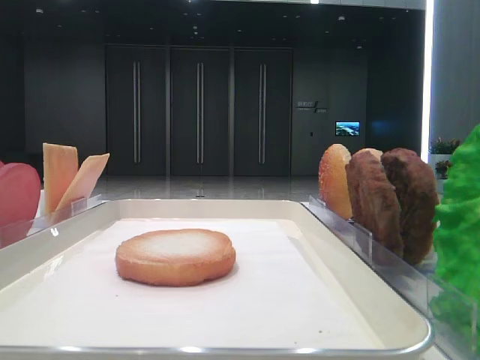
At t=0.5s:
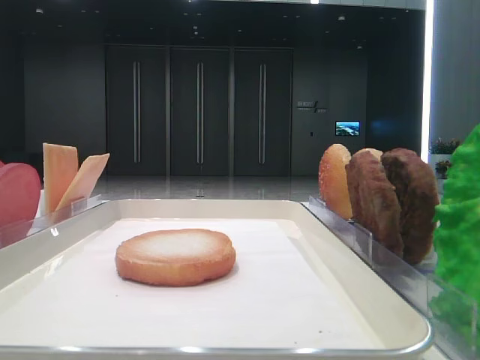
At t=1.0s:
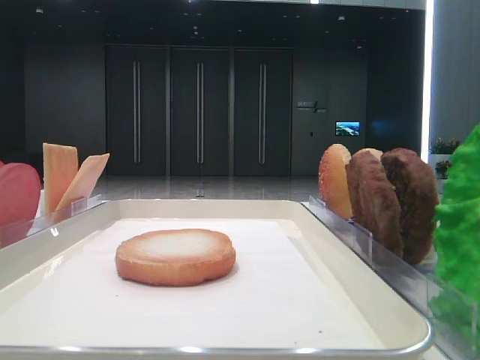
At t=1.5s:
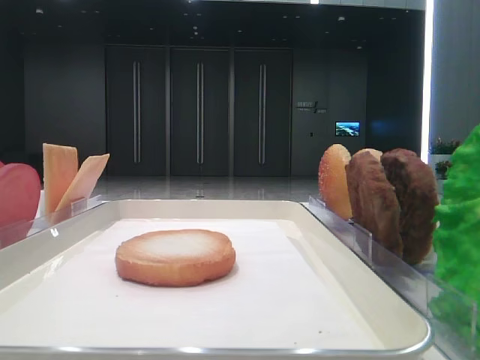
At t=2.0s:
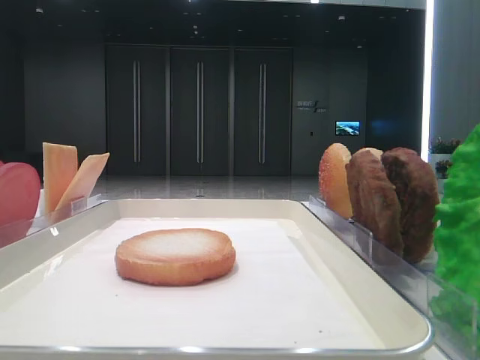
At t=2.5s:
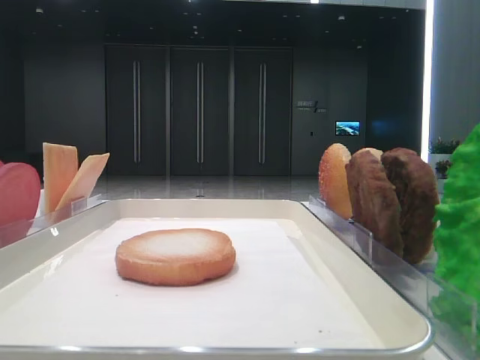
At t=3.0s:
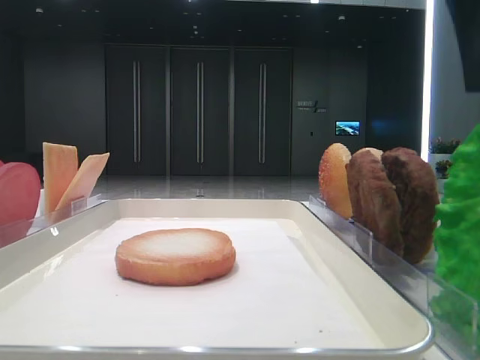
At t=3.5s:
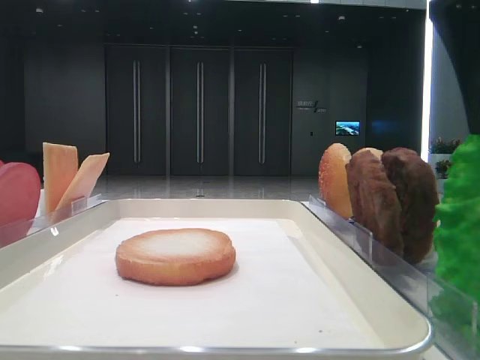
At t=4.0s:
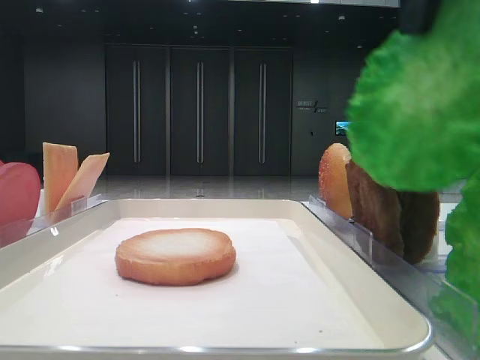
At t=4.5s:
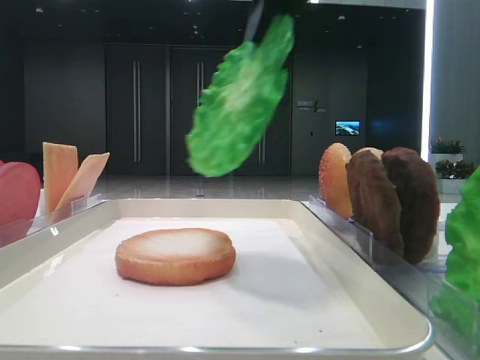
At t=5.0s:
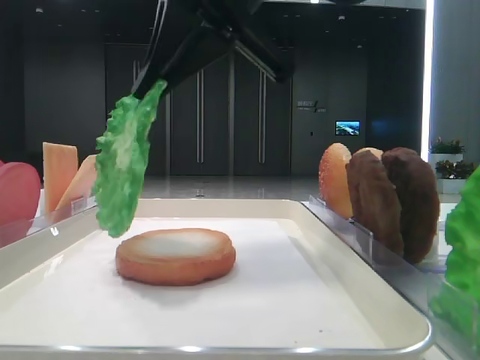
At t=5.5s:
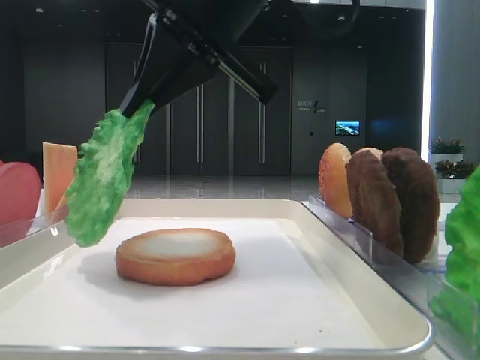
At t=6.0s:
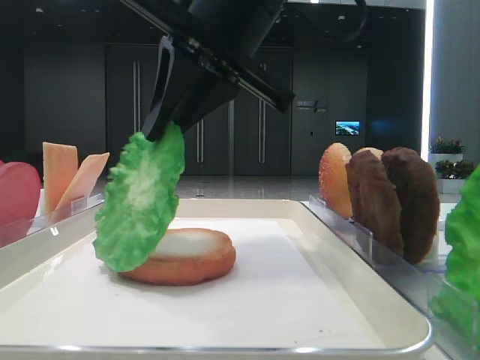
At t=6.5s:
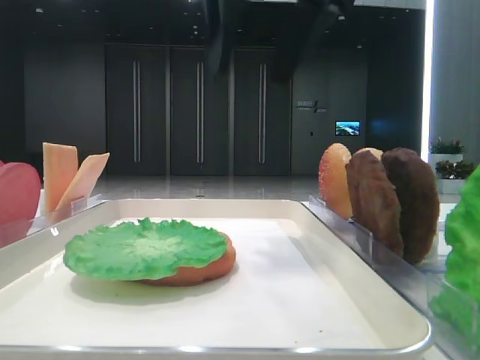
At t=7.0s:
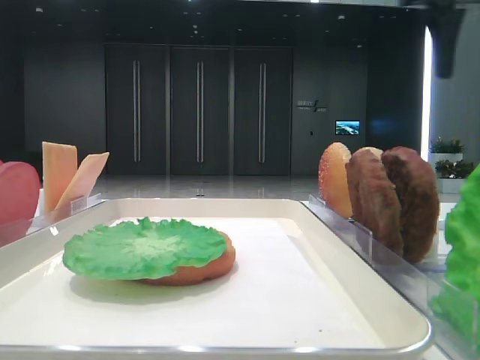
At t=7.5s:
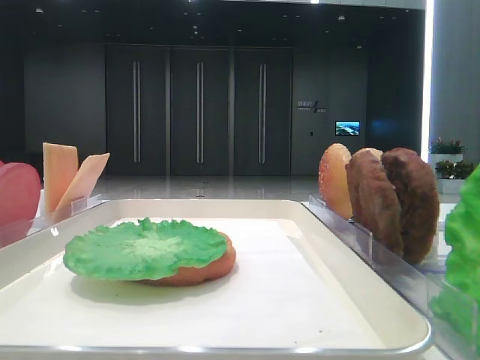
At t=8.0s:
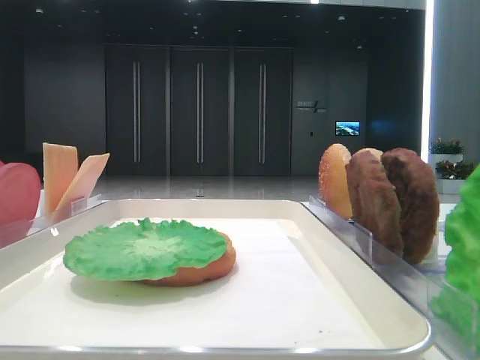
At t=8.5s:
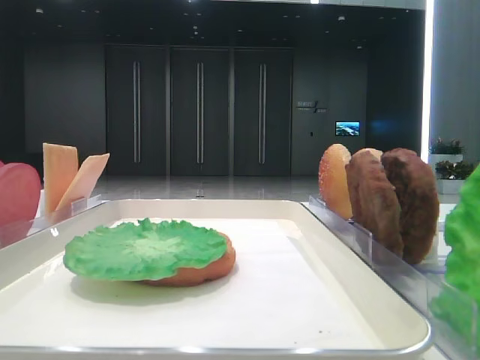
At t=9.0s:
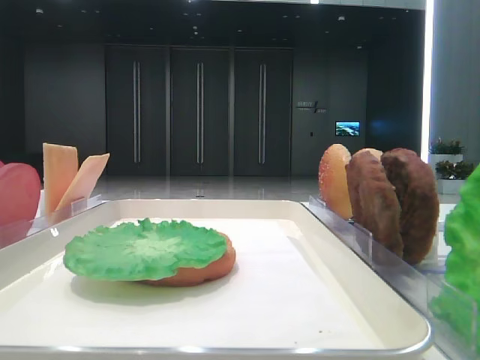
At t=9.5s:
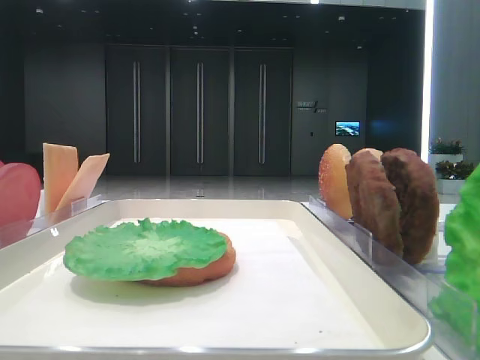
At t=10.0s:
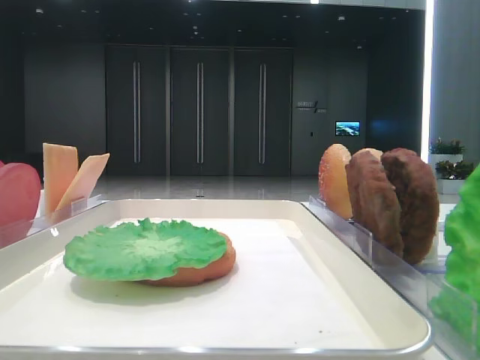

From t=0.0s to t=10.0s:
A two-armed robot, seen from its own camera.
Step, from t=0.0s to t=3.5s: Grab the lettuce leaf with the right hand.
Step, from t=4.0s to t=6.0s: Place the lettuce leaf on the bottom bread with the right hand.
From t=2.0s to t=4.0s: The right gripper goes some 20 cm to the left, and closes up.
From t=4.0s to t=6.0s: The right gripper shifts roughly 15 cm to the left, downward and forward.
From t=6.0s to t=8.0s: The right gripper shifts about 40 cm to the right and backward, and opens.

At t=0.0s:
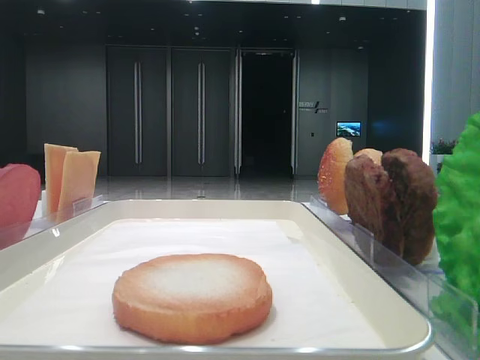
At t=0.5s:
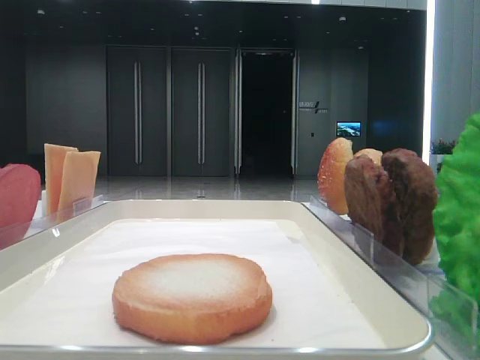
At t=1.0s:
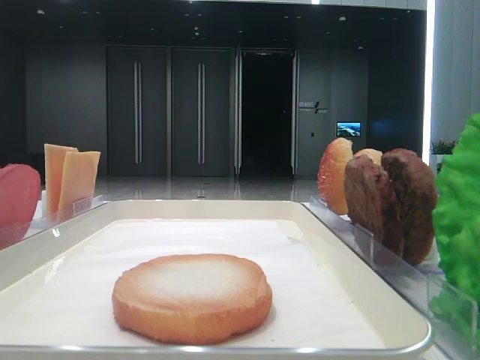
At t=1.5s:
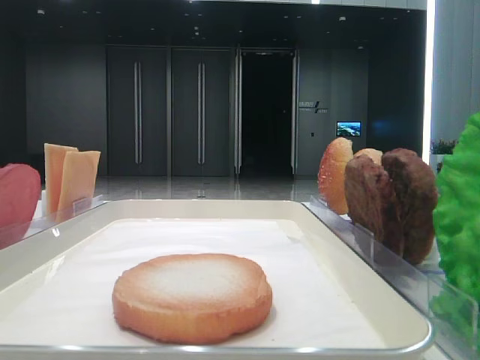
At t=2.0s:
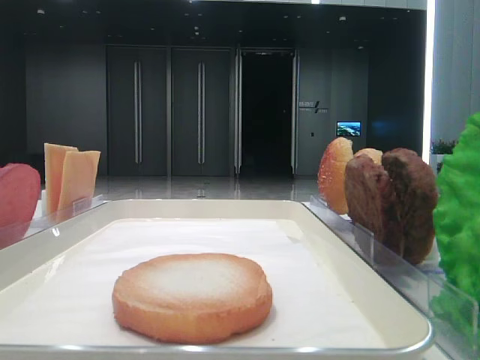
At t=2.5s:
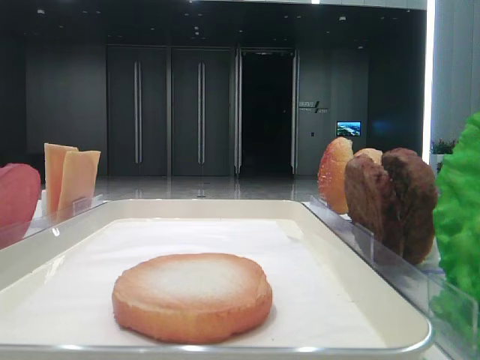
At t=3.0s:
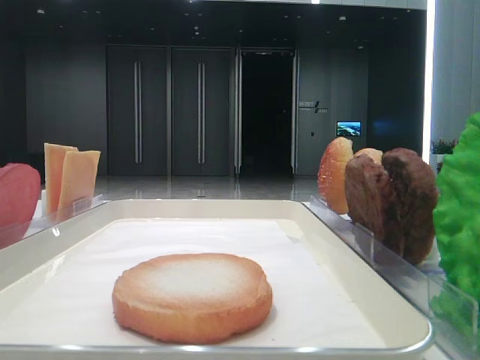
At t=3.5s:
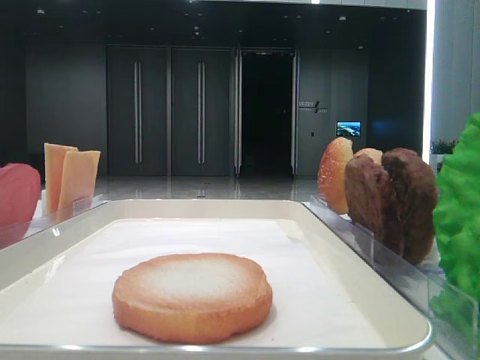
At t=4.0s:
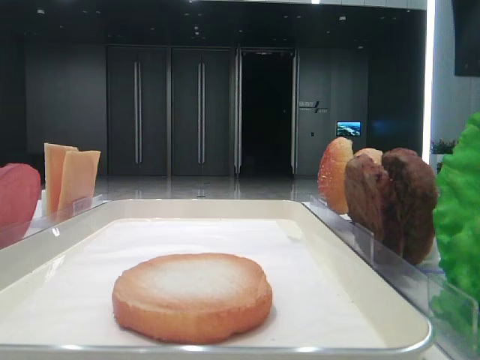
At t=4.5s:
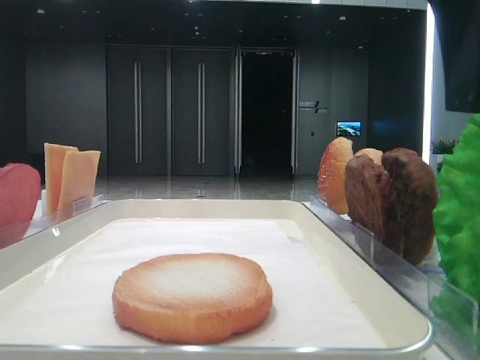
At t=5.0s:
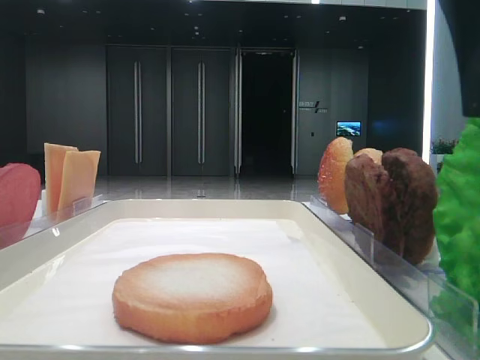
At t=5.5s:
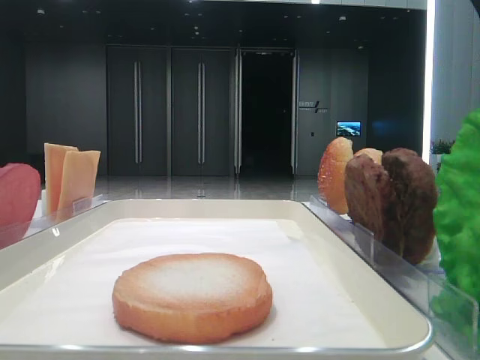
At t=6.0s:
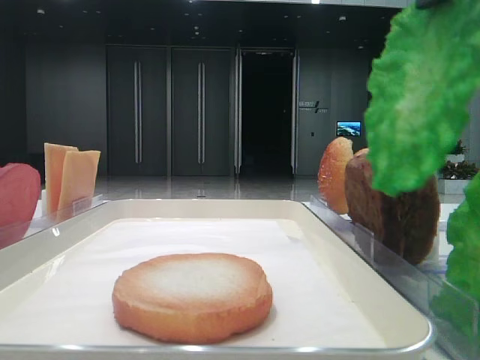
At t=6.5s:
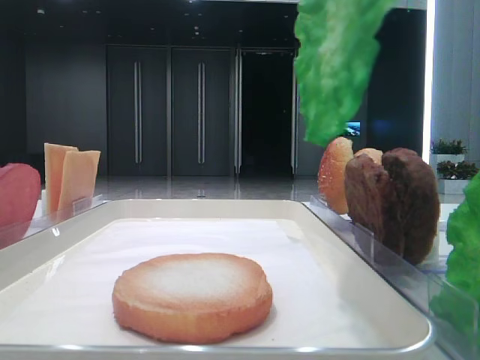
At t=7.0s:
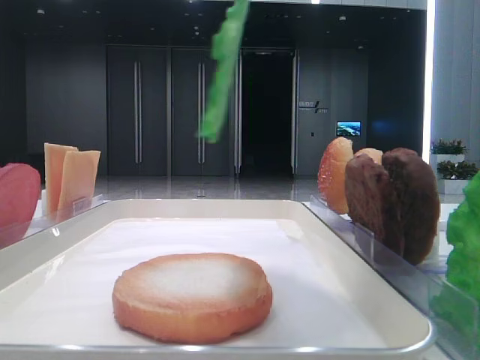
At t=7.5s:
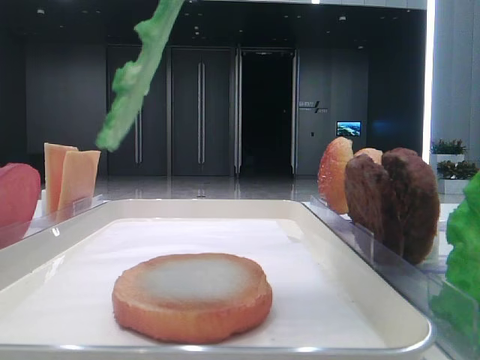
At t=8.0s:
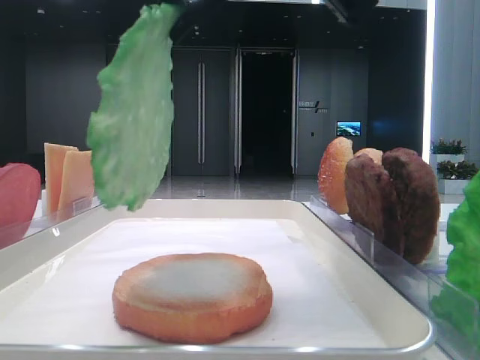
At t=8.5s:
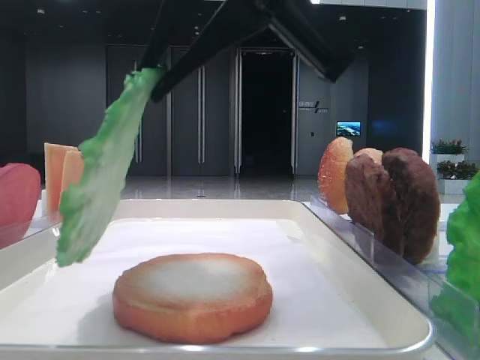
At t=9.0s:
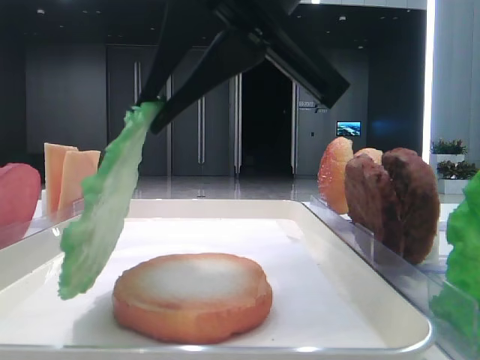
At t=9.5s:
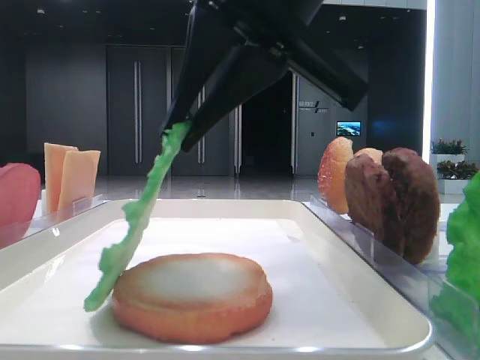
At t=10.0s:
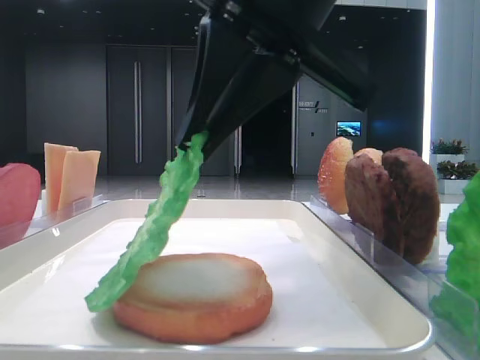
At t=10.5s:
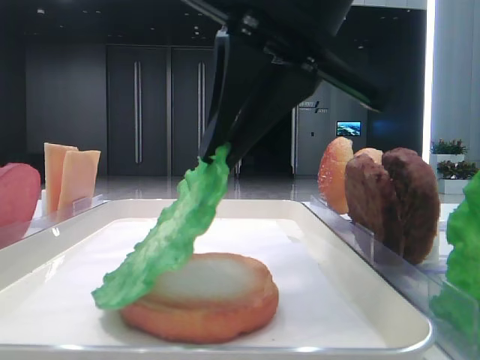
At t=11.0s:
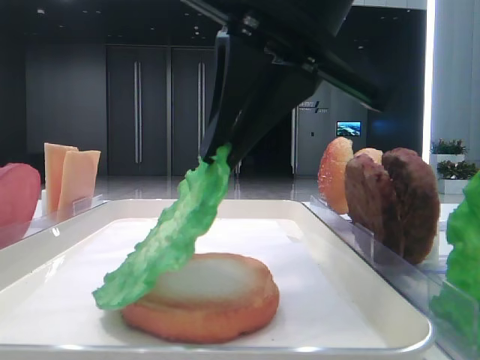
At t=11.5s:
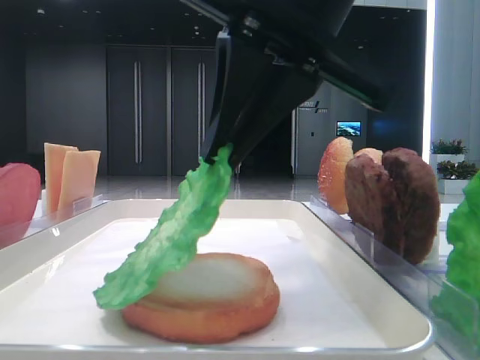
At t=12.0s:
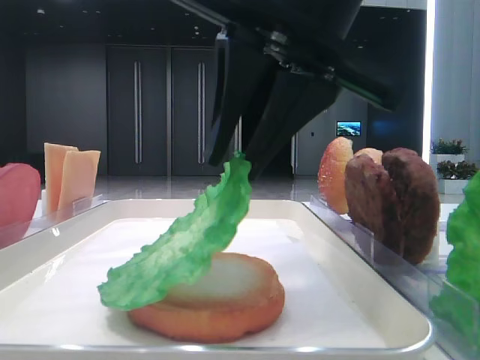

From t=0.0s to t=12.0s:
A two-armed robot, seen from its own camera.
Step, from t=0.0s to t=5.0s: Grab the lettuce leaf with the right hand.
From t=2.0s to t=4.0s: The right gripper shifts some 10 cm to the left.
From t=4.0s to t=6.0s: The right gripper closes.
From t=6.0s to t=8.0s: The right gripper travels to the left by roughly 10 cm.
From t=8.0s to t=10.0s: The right gripper is displaced downward by roughly 5 cm.
From t=10.0s to t=12.0s: The grippers make only small movements.

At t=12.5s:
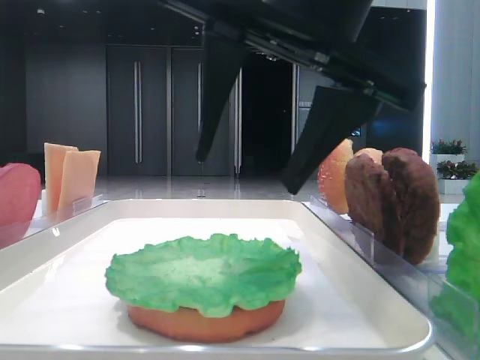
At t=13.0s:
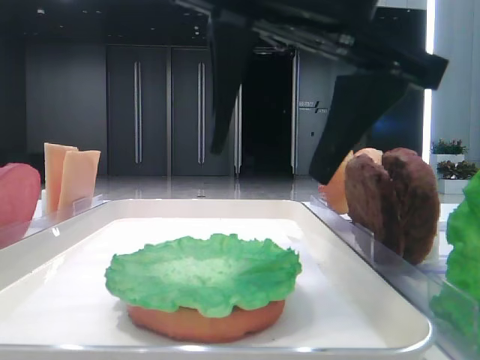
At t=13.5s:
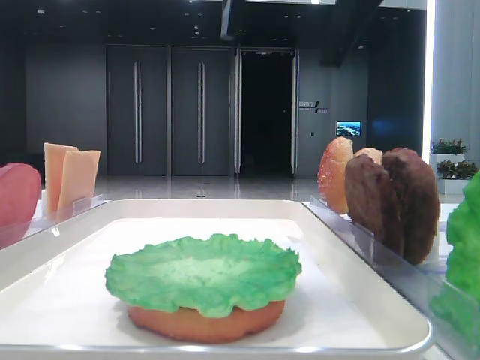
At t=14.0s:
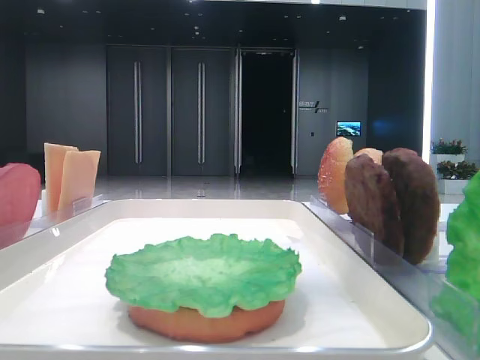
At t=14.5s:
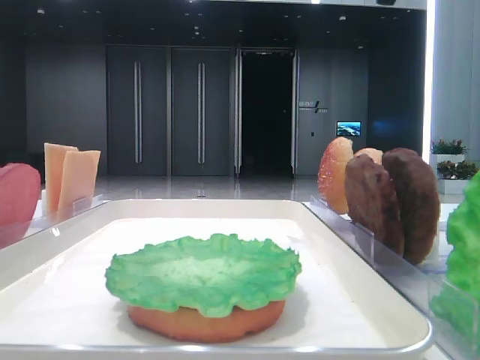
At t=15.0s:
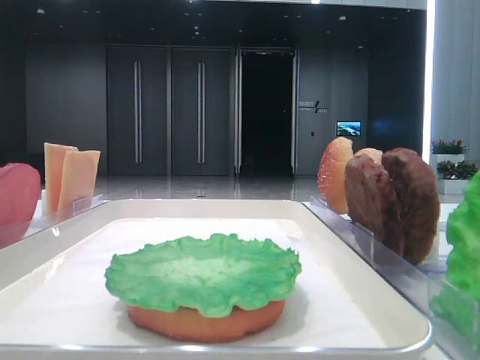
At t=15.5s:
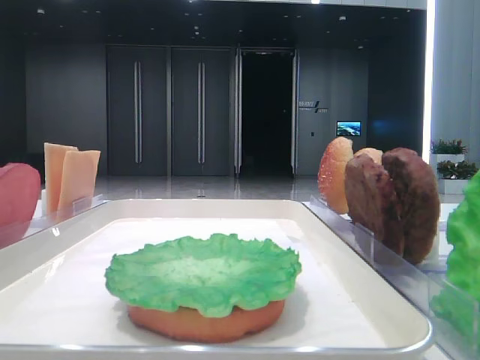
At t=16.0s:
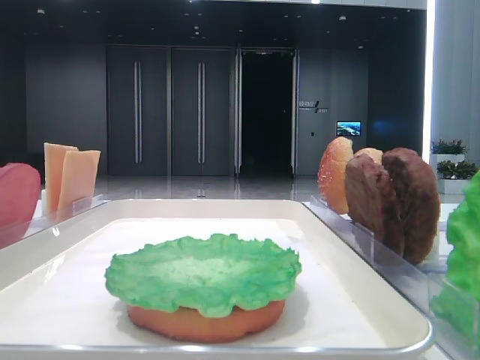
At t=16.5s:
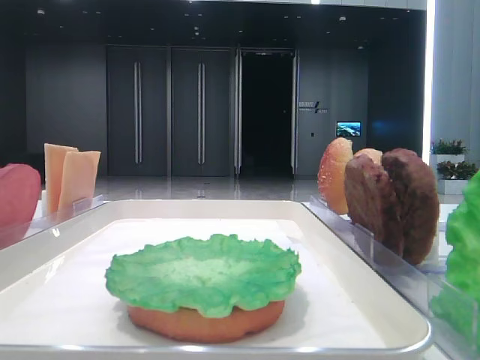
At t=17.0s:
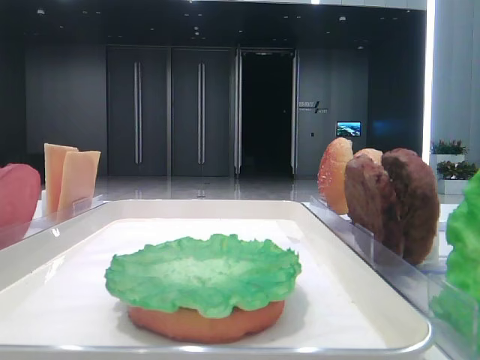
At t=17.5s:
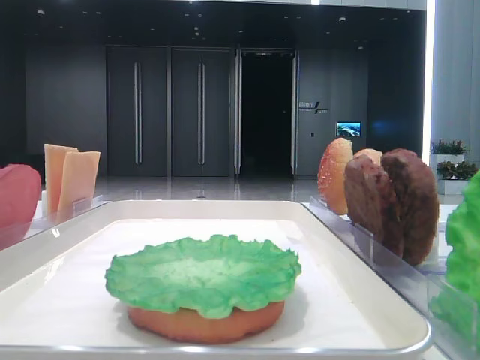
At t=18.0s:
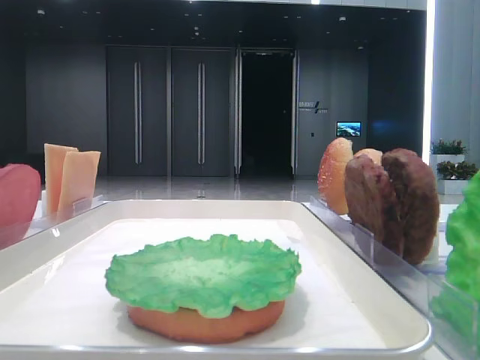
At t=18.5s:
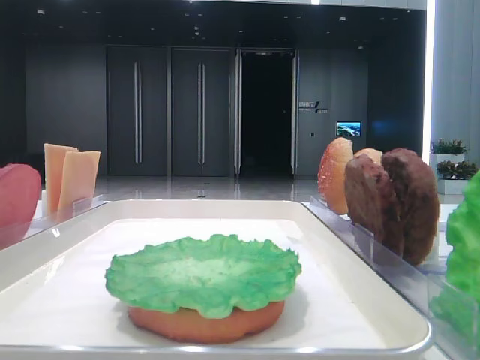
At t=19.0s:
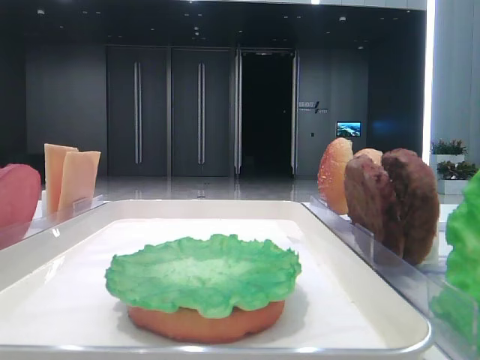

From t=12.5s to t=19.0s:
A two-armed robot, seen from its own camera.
From t=12.5s to t=14.5s: The right gripper shifts some 15 cm upward and to the right.
